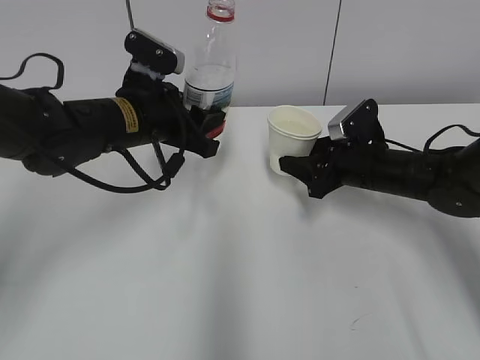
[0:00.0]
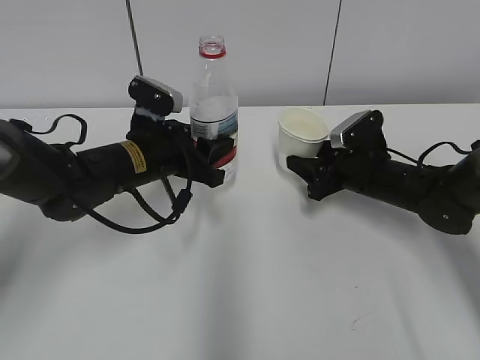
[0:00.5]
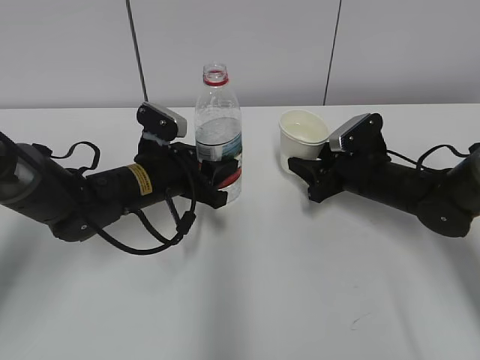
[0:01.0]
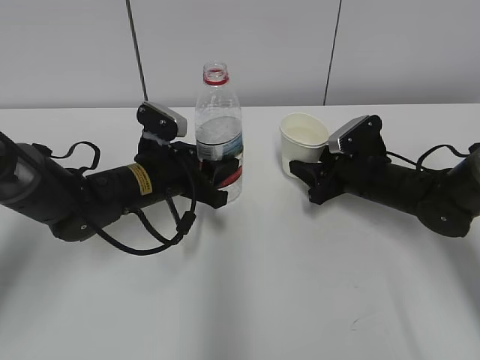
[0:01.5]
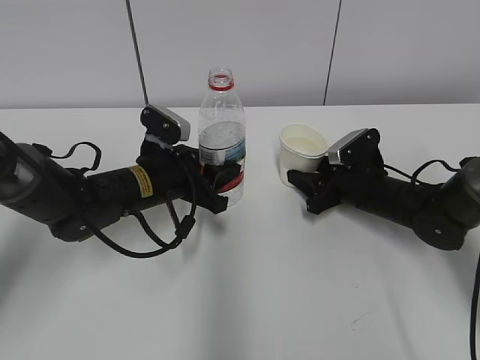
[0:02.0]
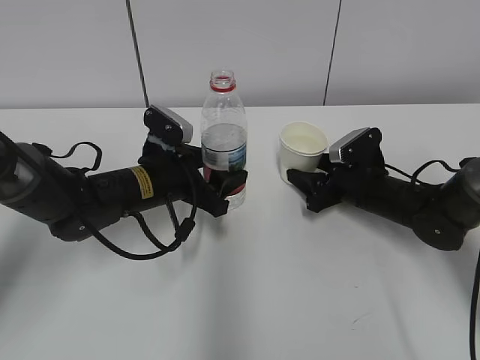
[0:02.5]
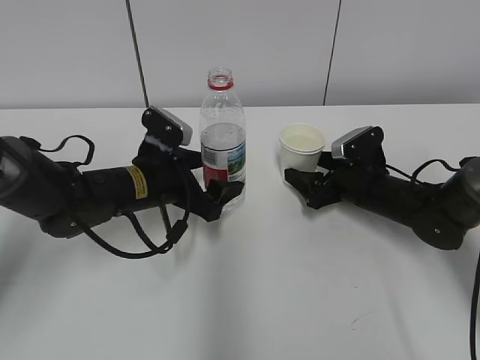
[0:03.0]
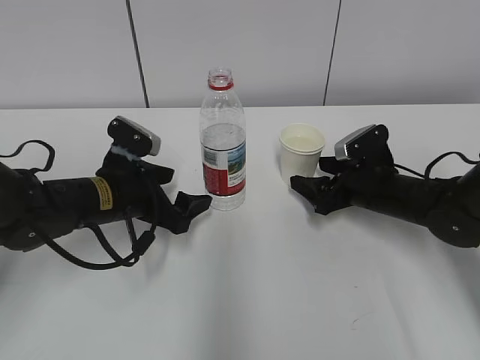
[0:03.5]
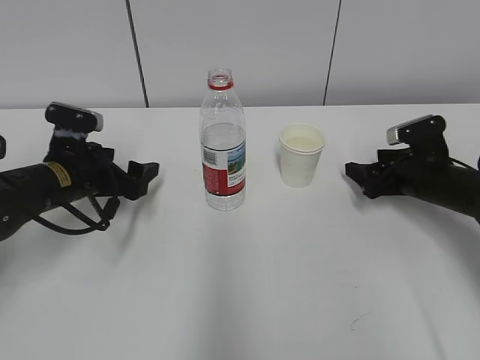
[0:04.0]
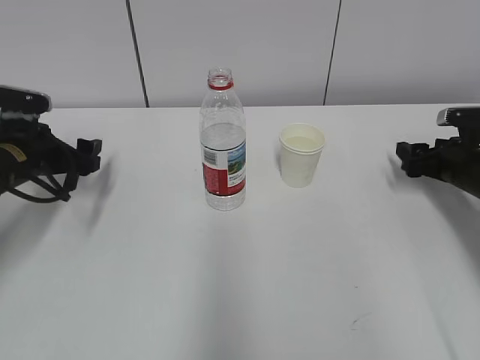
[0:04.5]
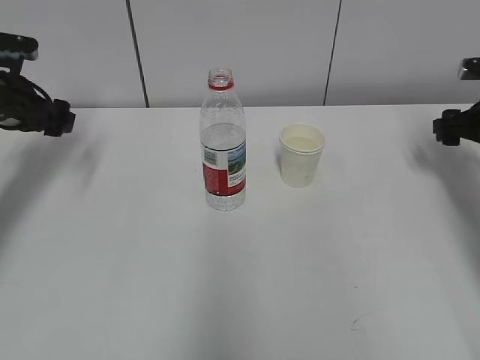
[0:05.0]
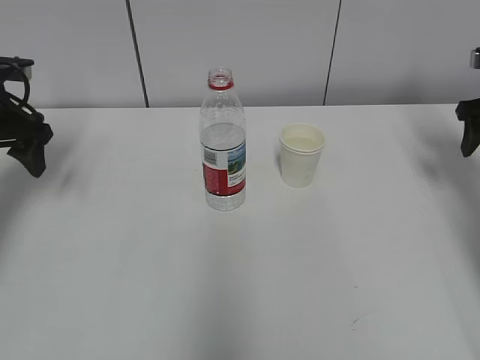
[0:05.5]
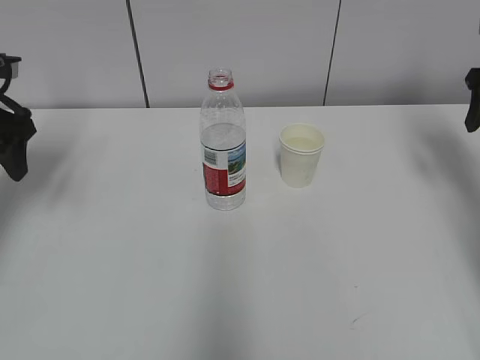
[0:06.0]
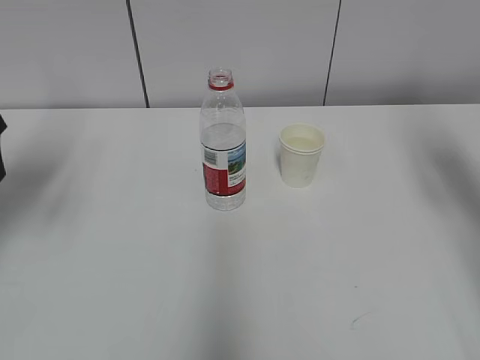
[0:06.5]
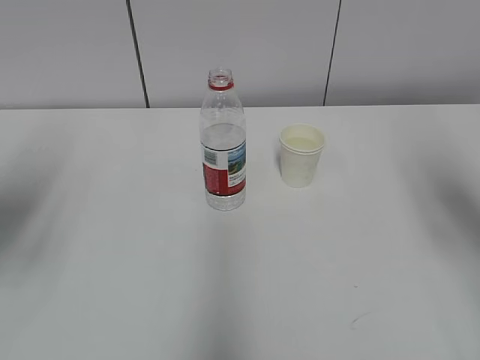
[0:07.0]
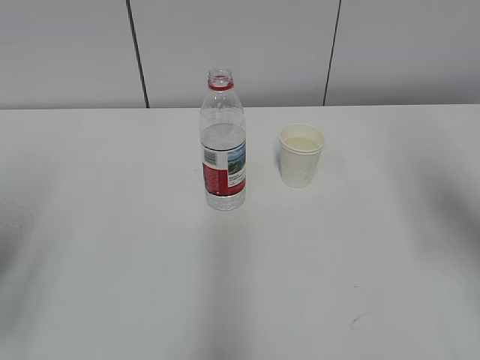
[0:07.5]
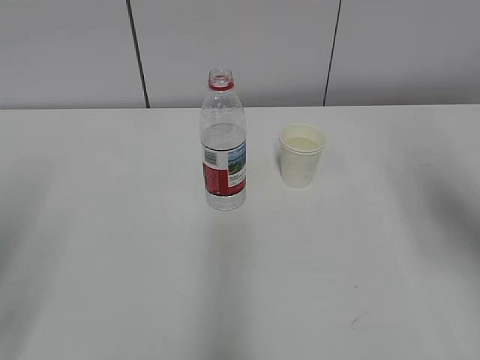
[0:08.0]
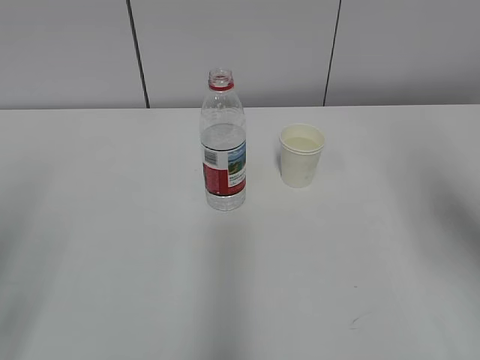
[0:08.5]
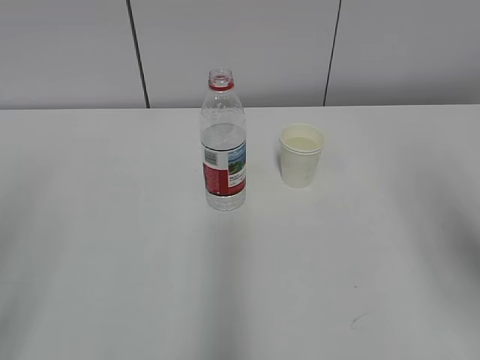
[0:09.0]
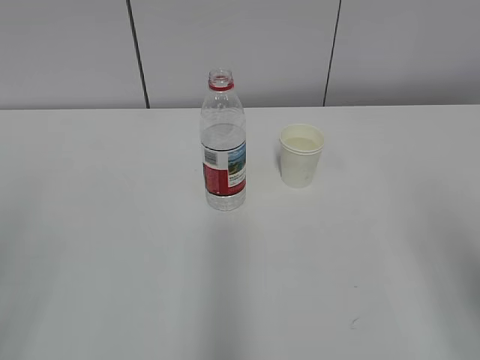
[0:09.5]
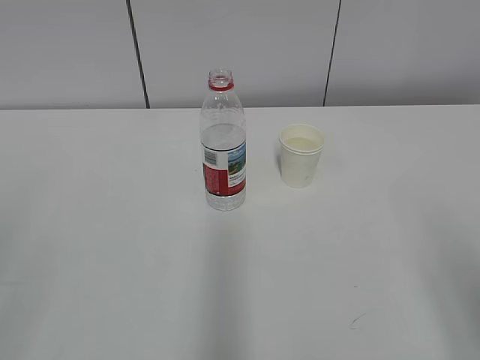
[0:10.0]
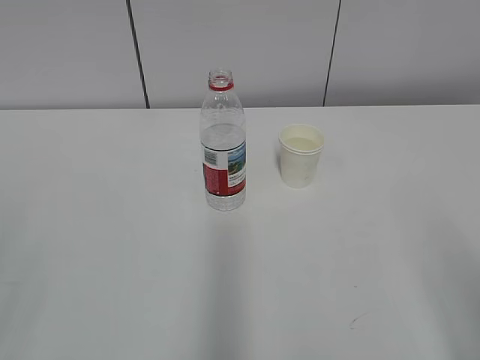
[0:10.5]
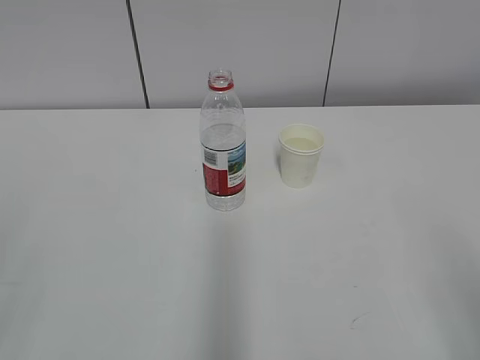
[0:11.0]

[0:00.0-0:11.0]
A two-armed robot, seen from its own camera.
0:00.0 to 0:02.0: The right gripper shifts roughly 5 cm downward, while the left gripper moves downward, some 10 cm.
0:02.0 to 0:03.5: The right gripper opens its fingers; the left gripper ends up some 5 cm from where it was, and opens.
0:03.5 to 0:05.5: The right gripper heads to the right and upward, covering about 20 cm, while the left gripper moves to the left, upward and forward, about 20 cm.
0:05.5 to 0:07.5: The left gripper travels backward by roughly 25 cm. The right gripper is displaced backward, upward and to the left by approximately 20 cm.
0:09.0 to 0:11.0: The right gripper travels backward and downward by roughly 15 cm.

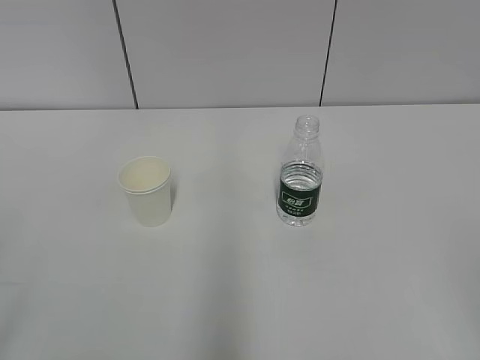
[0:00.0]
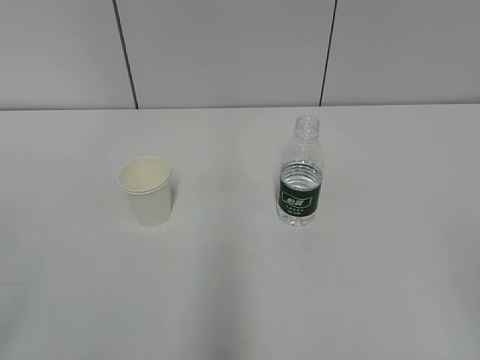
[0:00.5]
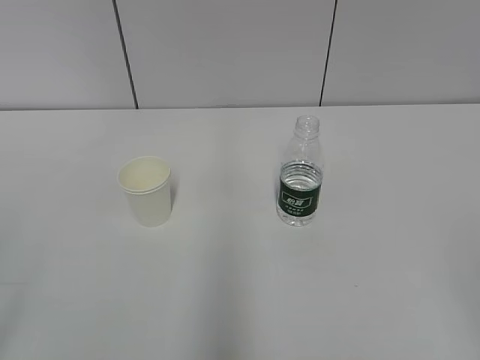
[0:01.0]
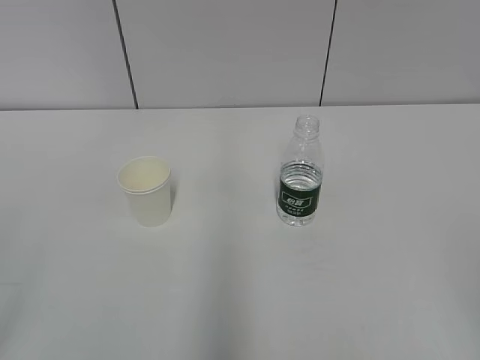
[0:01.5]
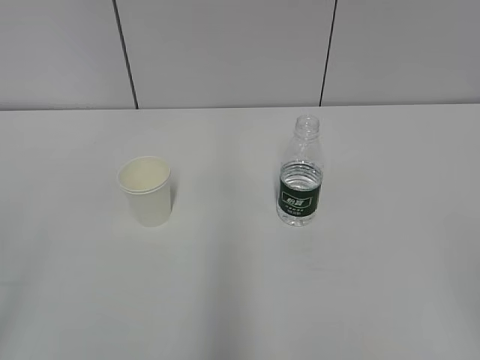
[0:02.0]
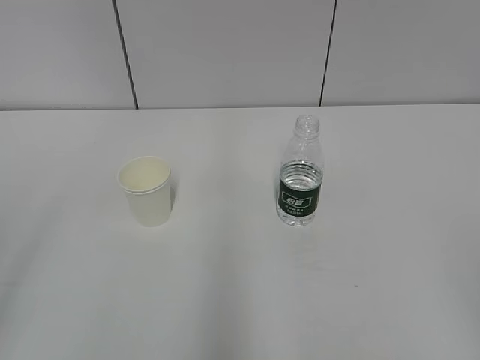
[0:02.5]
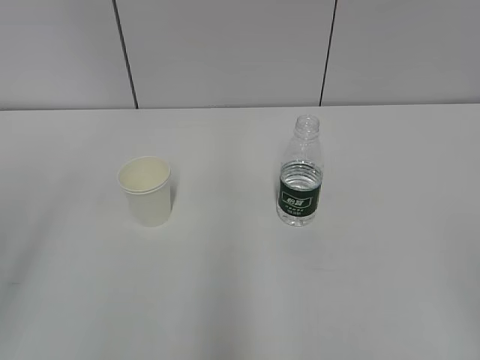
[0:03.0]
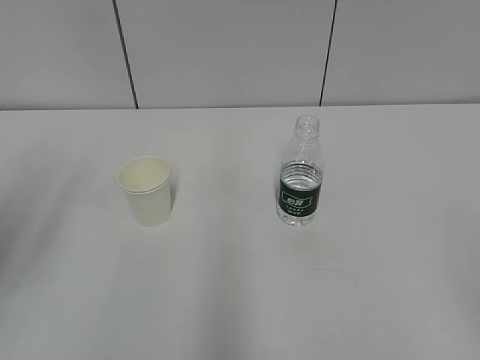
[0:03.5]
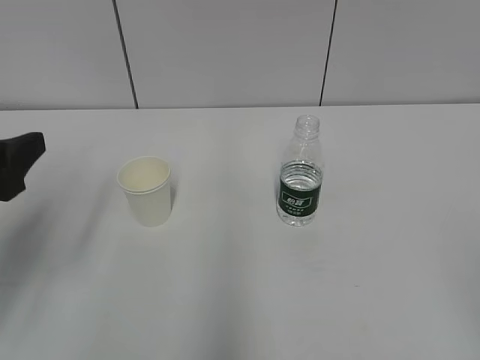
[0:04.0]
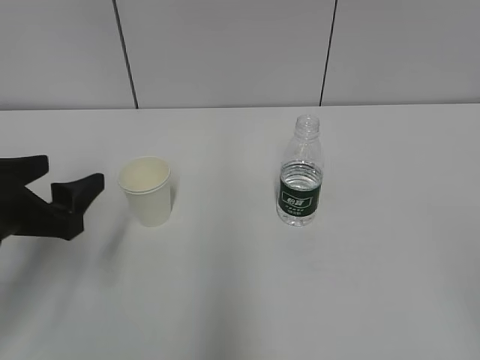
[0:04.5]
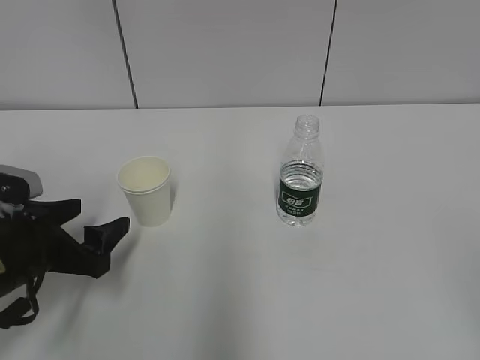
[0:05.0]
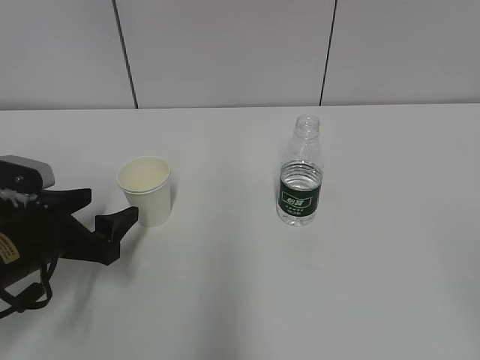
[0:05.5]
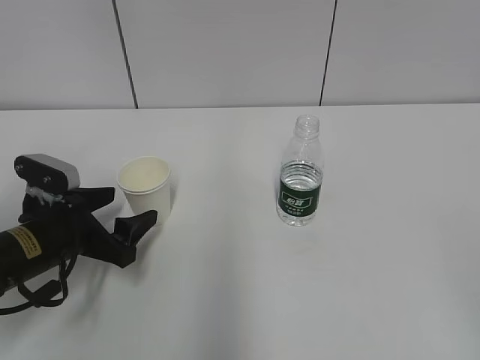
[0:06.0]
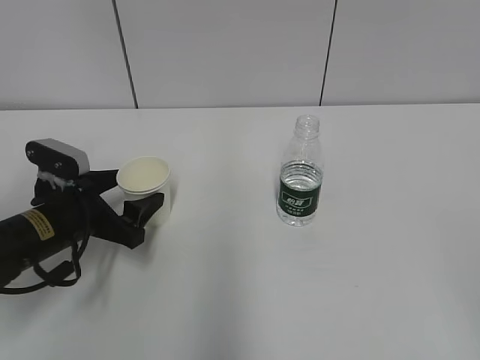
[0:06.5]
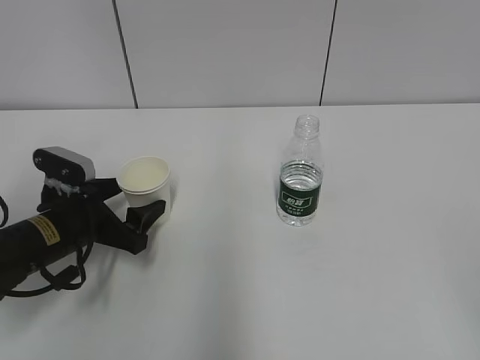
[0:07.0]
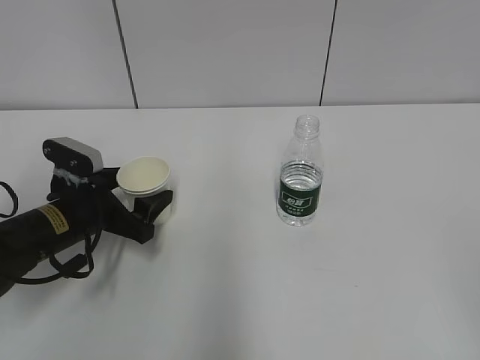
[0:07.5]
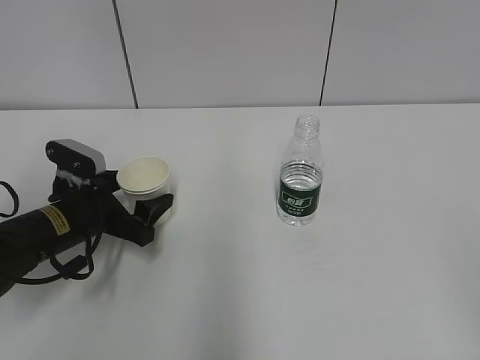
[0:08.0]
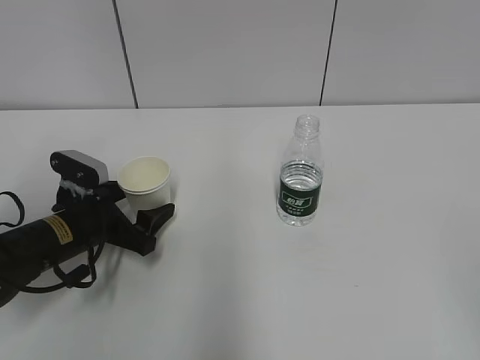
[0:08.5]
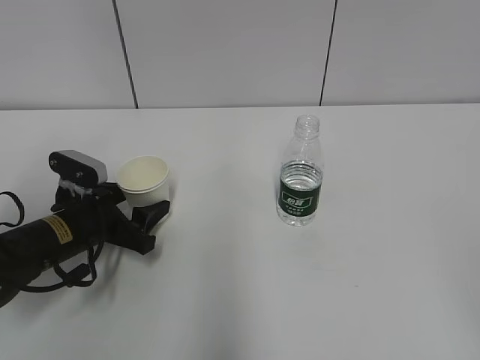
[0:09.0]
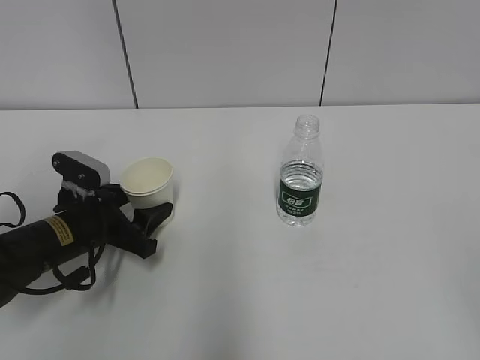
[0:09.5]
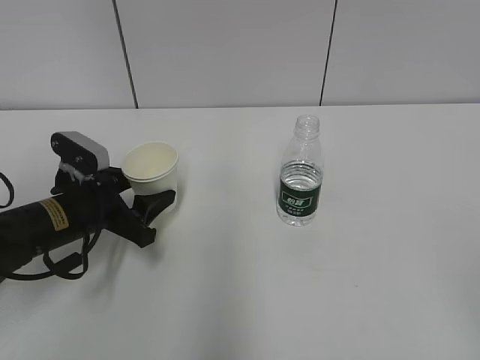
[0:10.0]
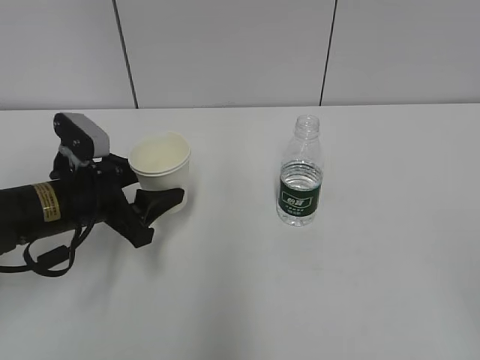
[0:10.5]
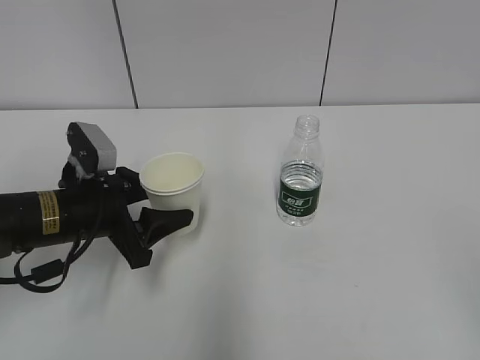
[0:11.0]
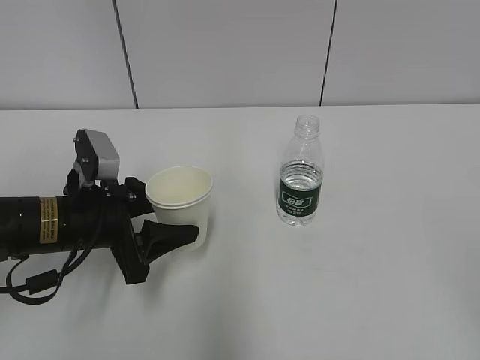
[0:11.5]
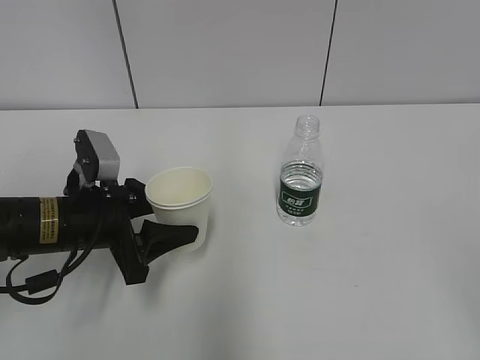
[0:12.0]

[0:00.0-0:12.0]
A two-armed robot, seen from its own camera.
Step, 0:00.0 to 0:07.5: Grab the paper cup with the left hand.
0:02.0 to 0:04.0: The left gripper is displaced forward by some 20 cm.
0:04.0 to 0:06.0: The left gripper travels downward and forward by roughly 15 cm.
0:06.0 to 0:08.0: The grippers make only small movements.
0:08.0 to 0:10.0: The left gripper closes.

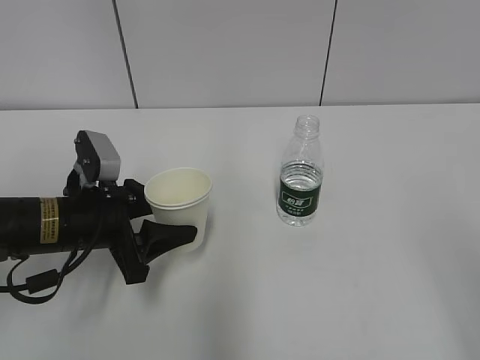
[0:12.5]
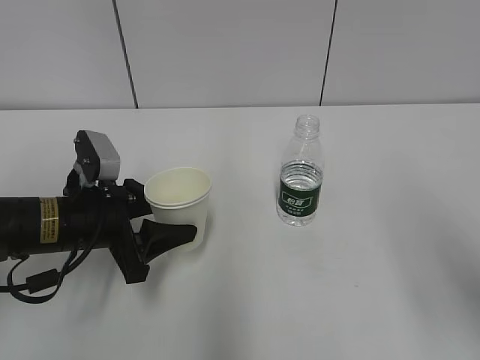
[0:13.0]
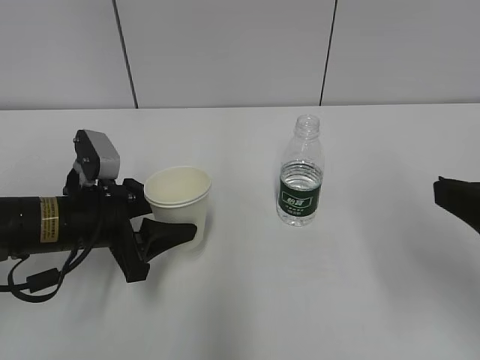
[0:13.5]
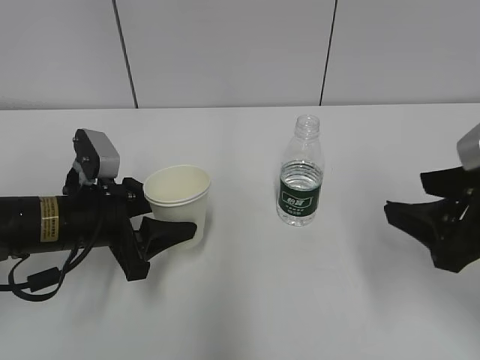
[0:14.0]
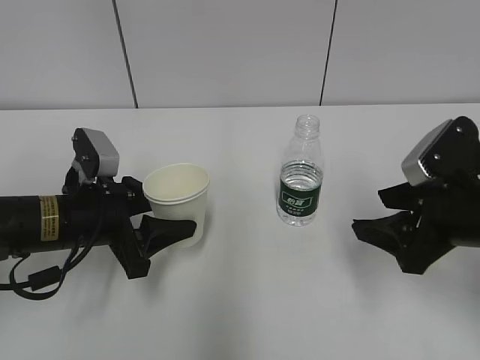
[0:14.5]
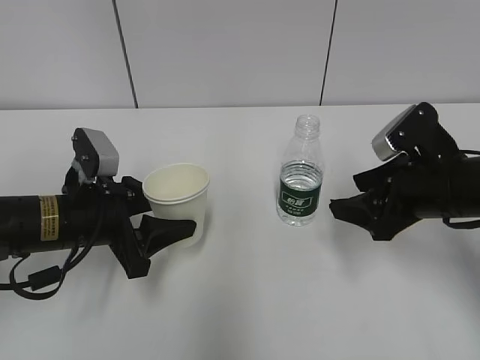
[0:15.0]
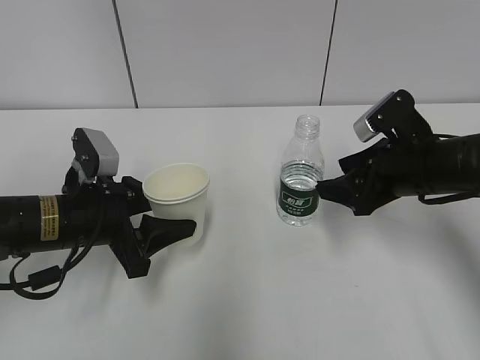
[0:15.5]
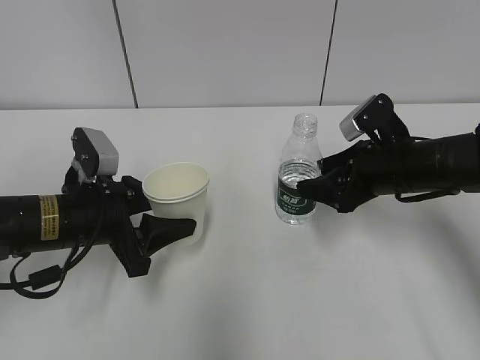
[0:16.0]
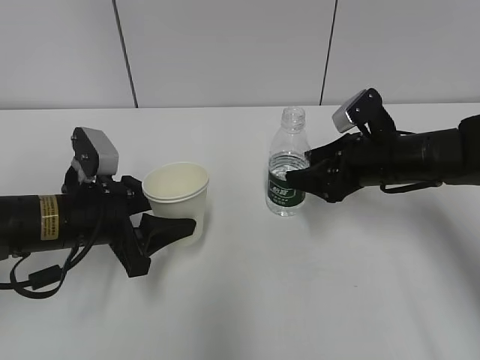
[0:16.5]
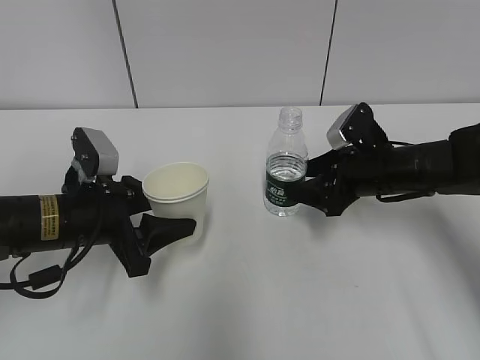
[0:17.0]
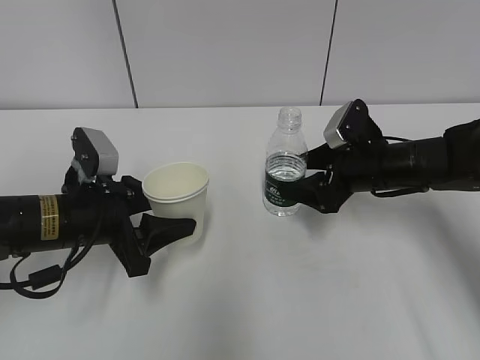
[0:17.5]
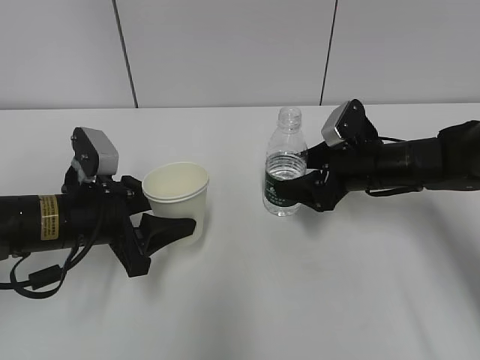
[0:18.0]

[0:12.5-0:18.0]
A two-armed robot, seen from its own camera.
Step, 0:12.5 to 0:16.5: Grab the water bottle with the right hand.
0:12.5 to 0:14.5: The right gripper goes approximately 25 cm forward and downward.
0:14.5 to 0:16.0: The right gripper shifts about 10 cm forward.
0:16.0 to 0:18.0: The right gripper ends up about 5 cm from where it was.
